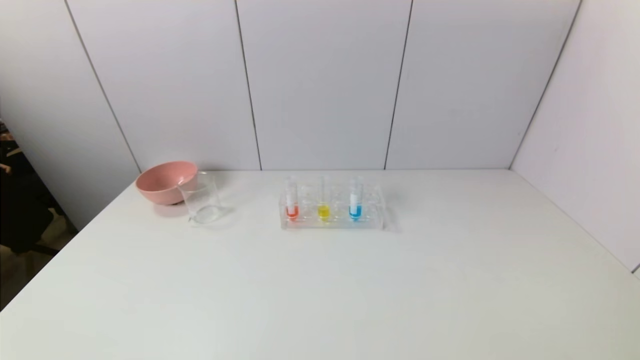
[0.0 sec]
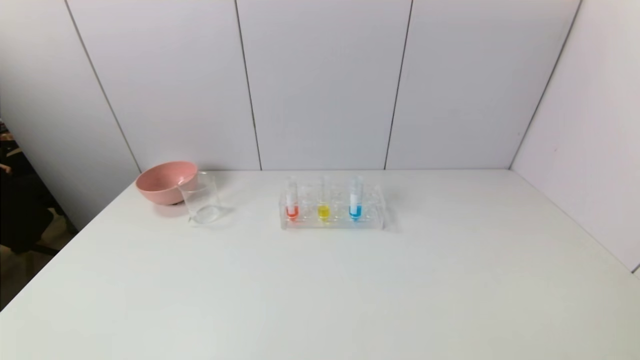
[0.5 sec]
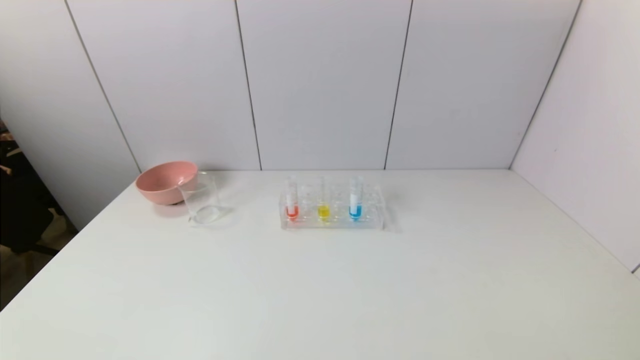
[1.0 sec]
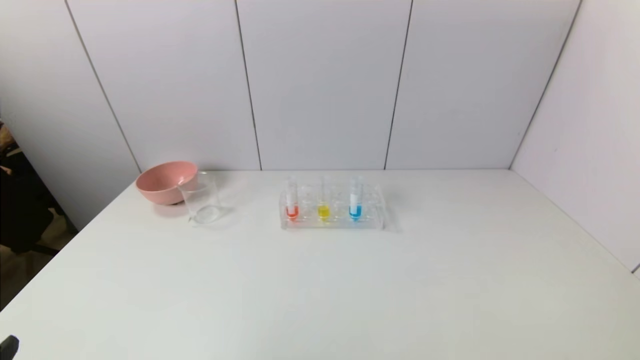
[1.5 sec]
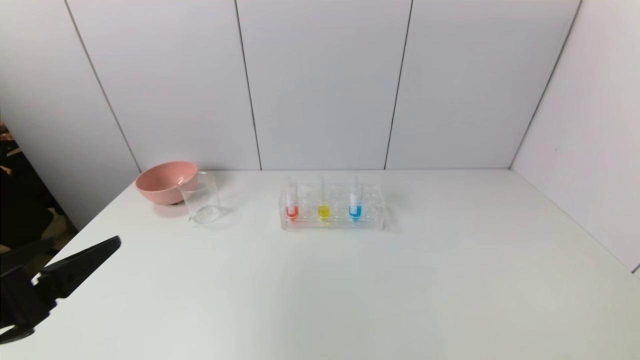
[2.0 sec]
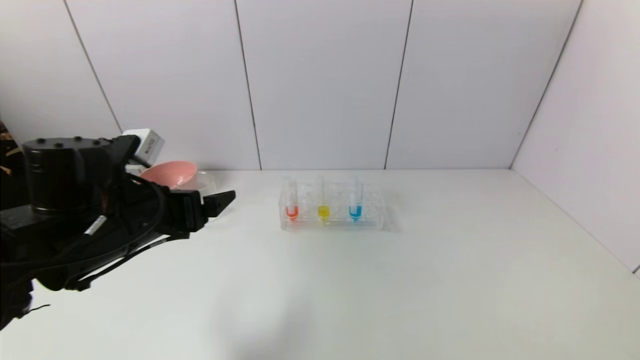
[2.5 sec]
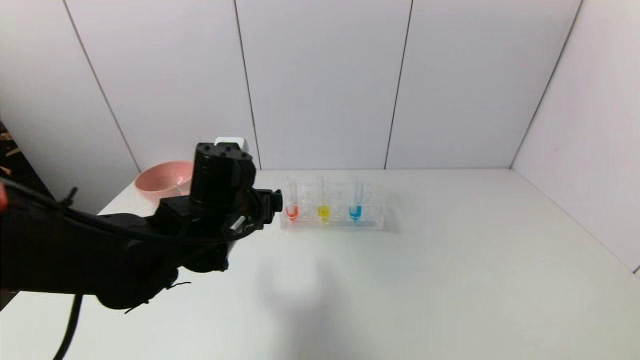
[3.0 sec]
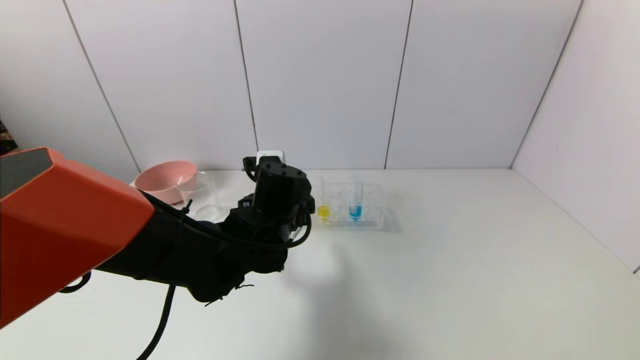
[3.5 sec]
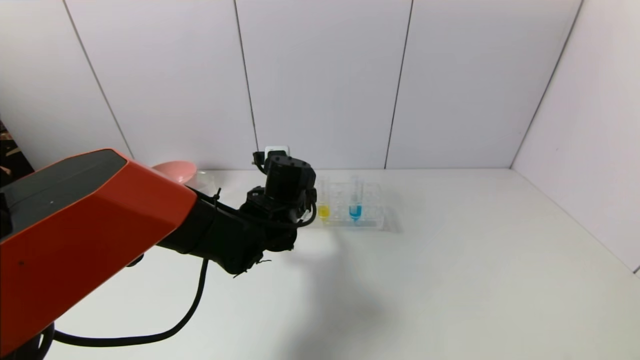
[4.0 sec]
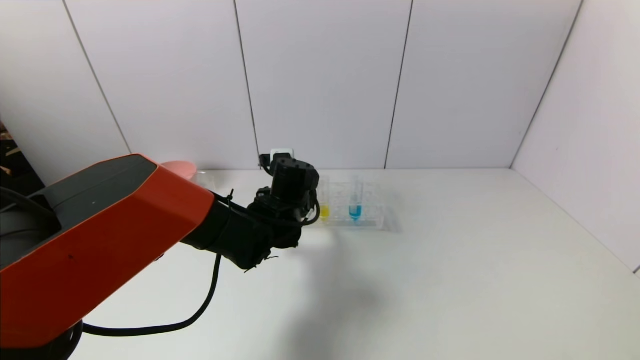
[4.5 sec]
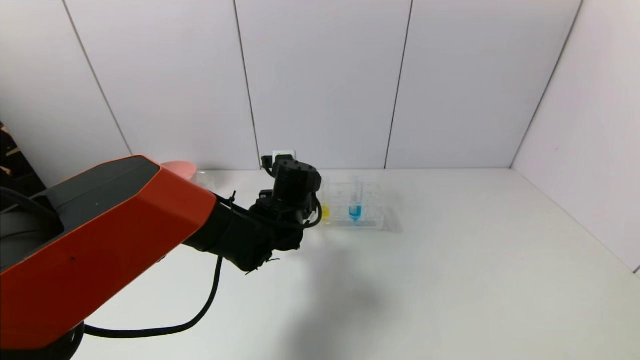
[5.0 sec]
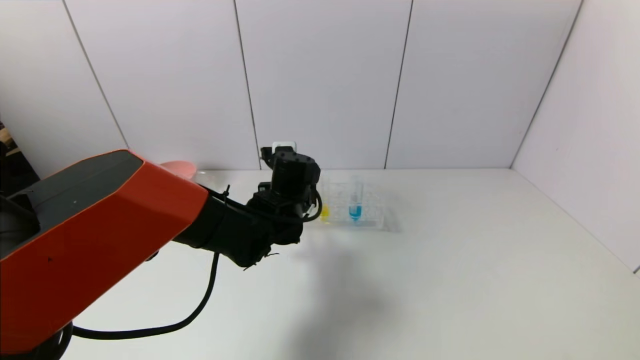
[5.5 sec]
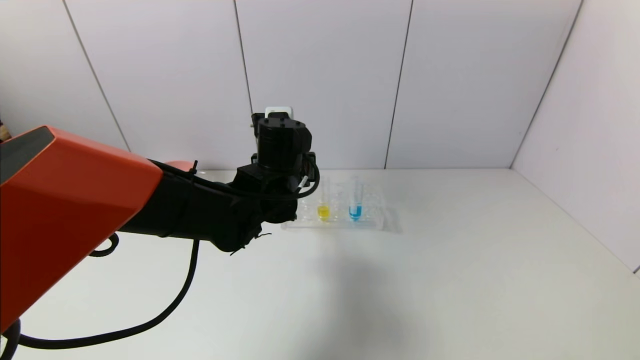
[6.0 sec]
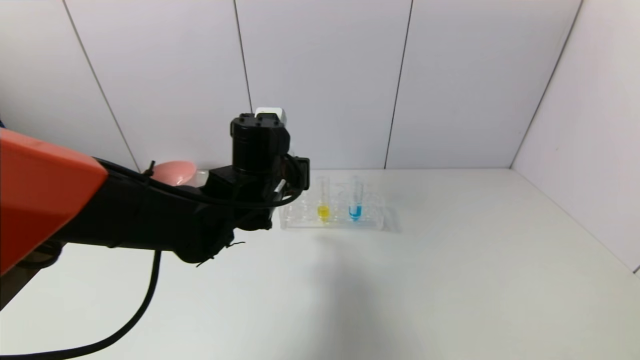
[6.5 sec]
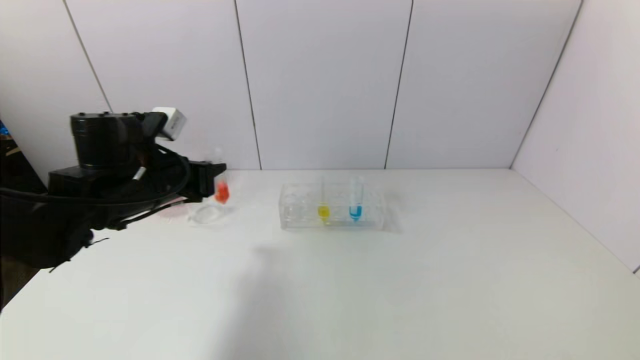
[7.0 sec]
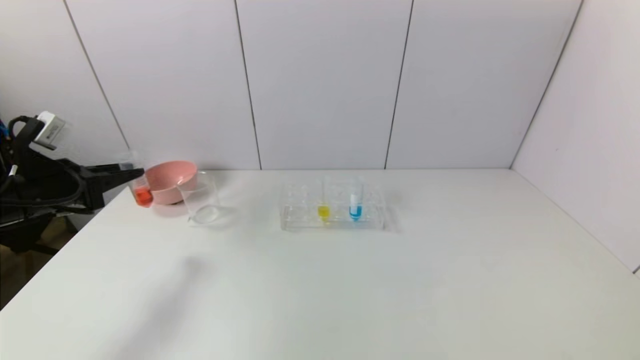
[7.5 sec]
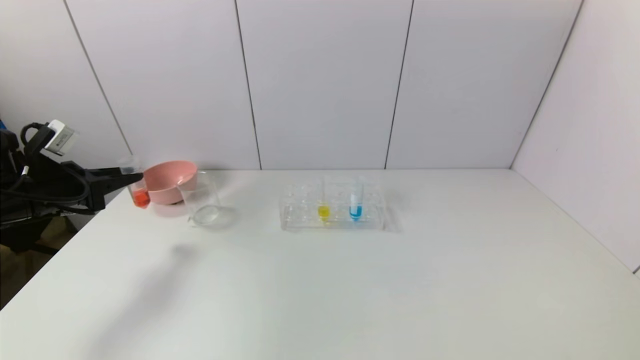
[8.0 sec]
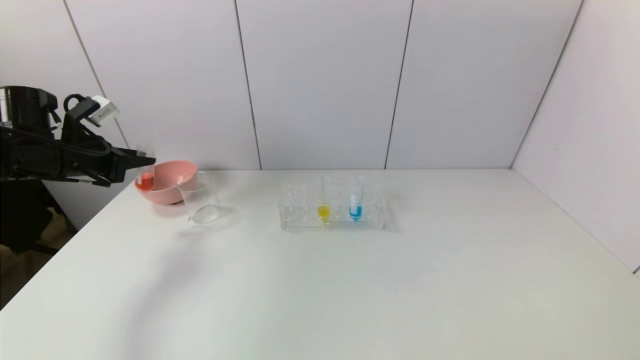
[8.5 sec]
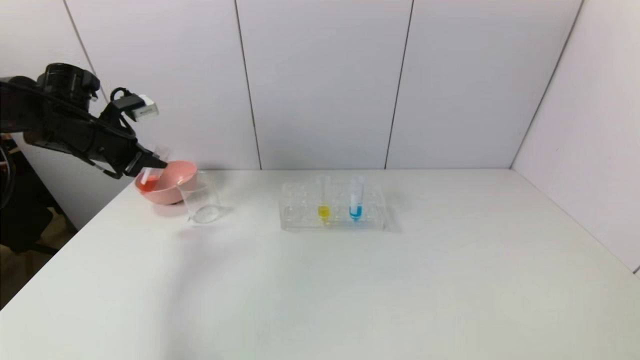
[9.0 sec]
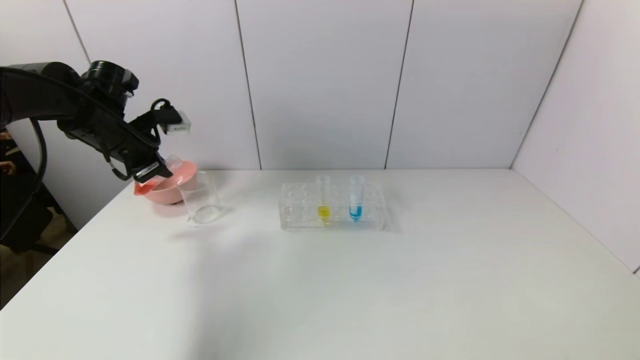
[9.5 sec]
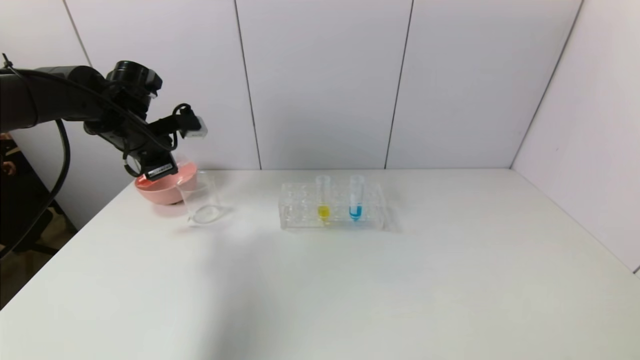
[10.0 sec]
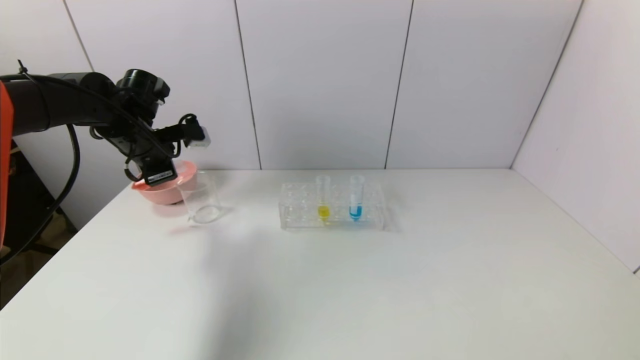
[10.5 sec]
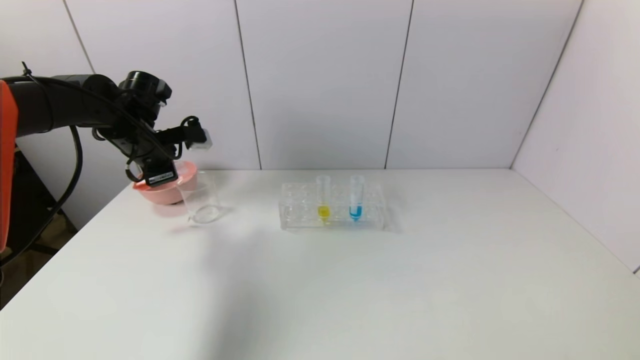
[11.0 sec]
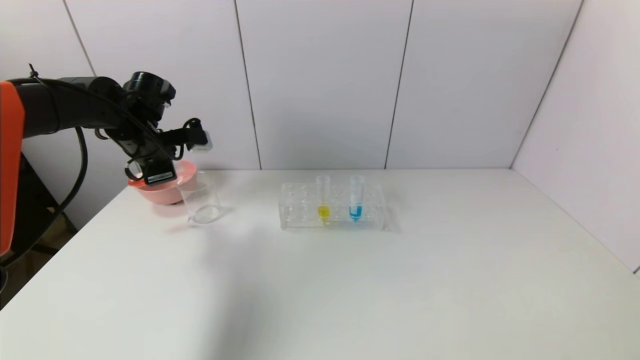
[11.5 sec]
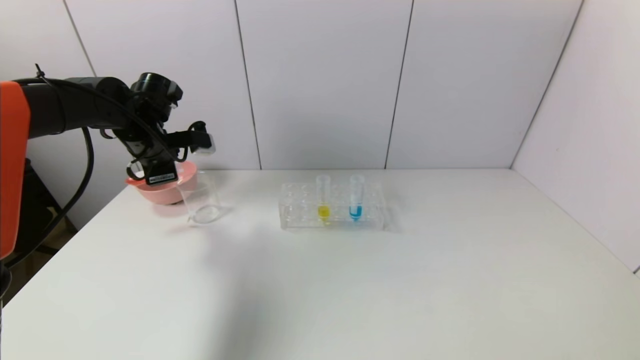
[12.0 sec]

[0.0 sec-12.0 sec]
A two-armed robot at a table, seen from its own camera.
Task of the whole recording: pick up the test tube with red pigment and the test tube with blue pigment by grippers and pour them into the container.
Step, 0.0 sec to 5.0 sec: Grasp the red reagent with the left gripper.
0.0 sec to 2.0 sec: The left gripper moves forward and upward, roughly 20 cm.
2.0 sec to 4.0 sec: The left gripper travels forward and to the right by about 35 cm.
4.0 sec to 6.0 sec: The left gripper travels upward by about 5 cm, and closes its fingers.
6.0 sec to 8.0 sec: The left gripper shifts about 35 cm to the left.
8.0 sec to 10.0 sec: The left gripper moves to the right, forward and upward, roughly 15 cm.
10.0 sec to 12.0 sec: The grippers stay close to where they were, moving slightly.

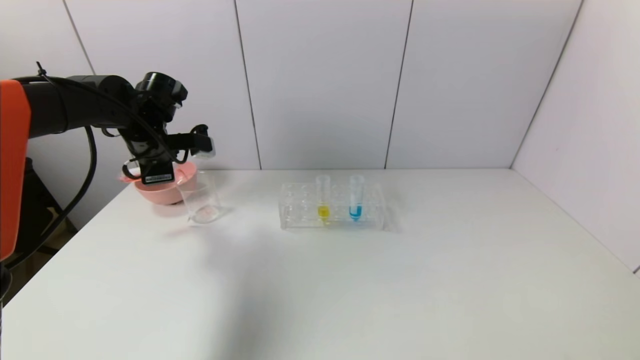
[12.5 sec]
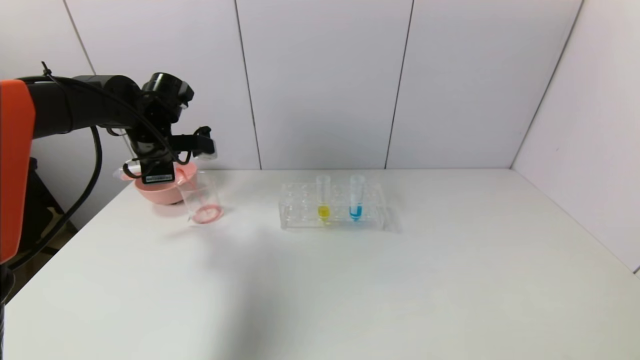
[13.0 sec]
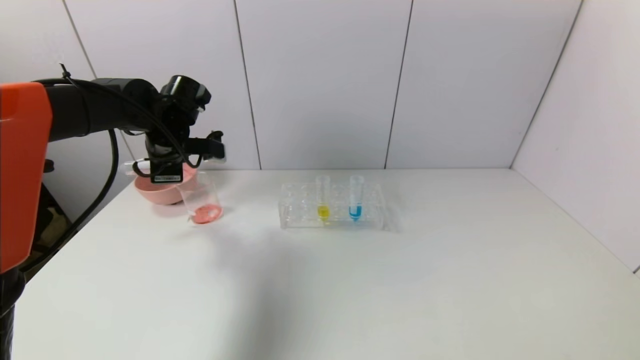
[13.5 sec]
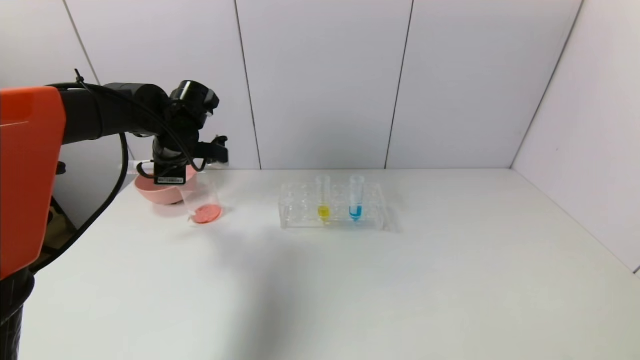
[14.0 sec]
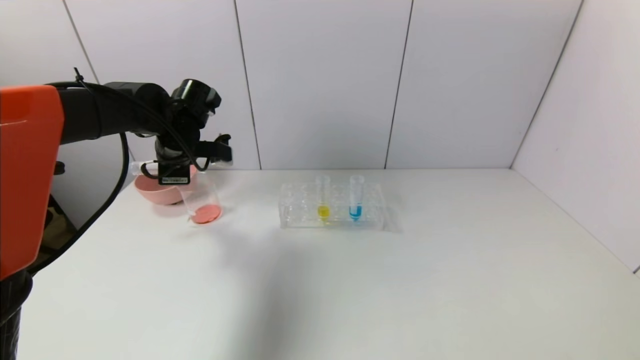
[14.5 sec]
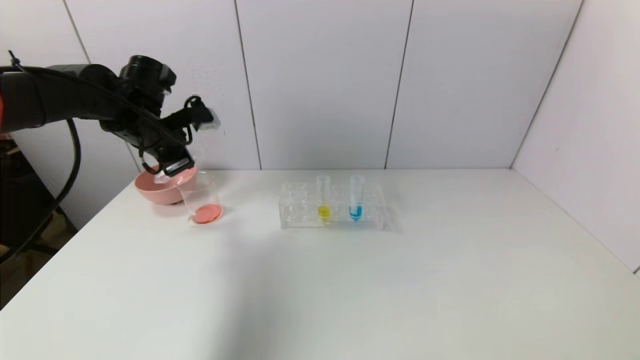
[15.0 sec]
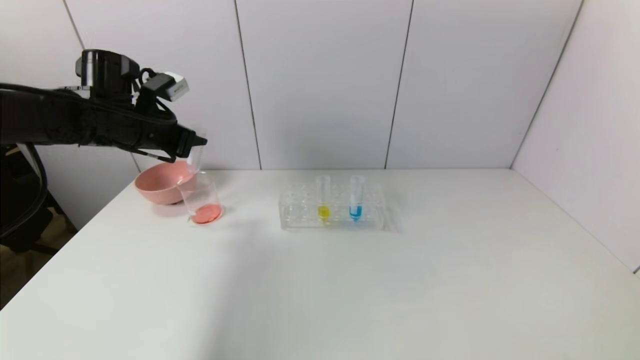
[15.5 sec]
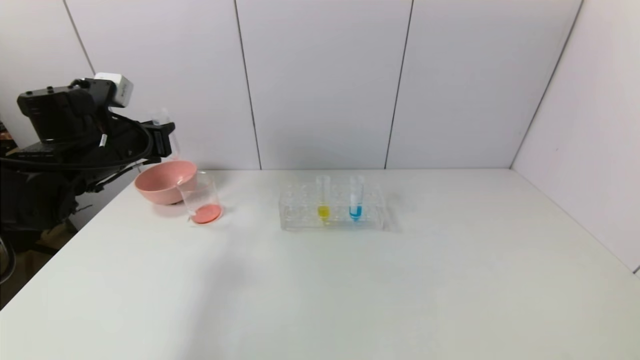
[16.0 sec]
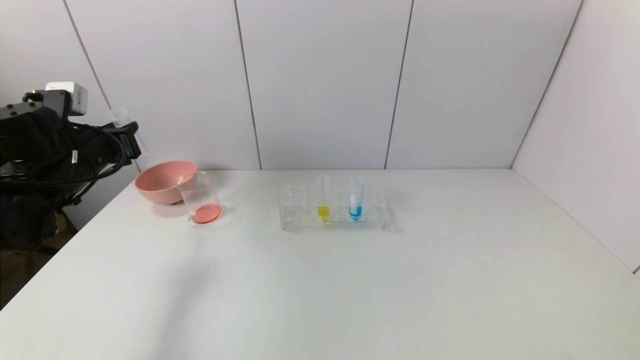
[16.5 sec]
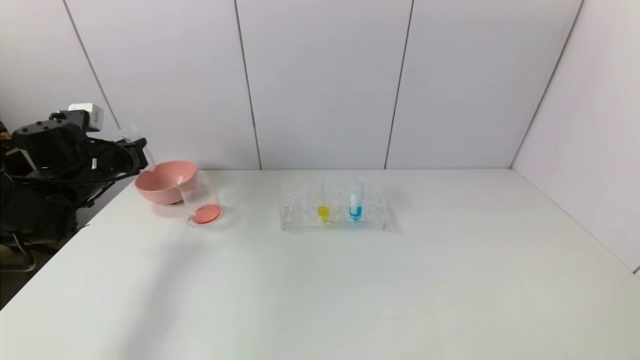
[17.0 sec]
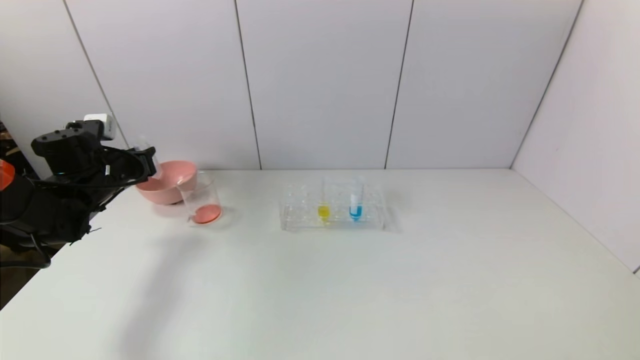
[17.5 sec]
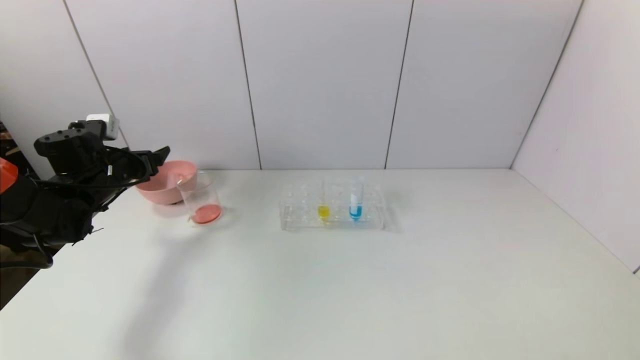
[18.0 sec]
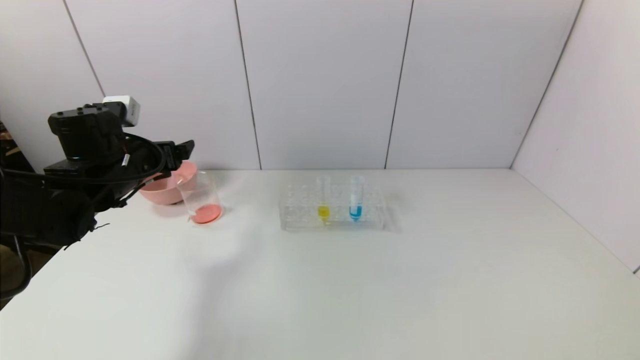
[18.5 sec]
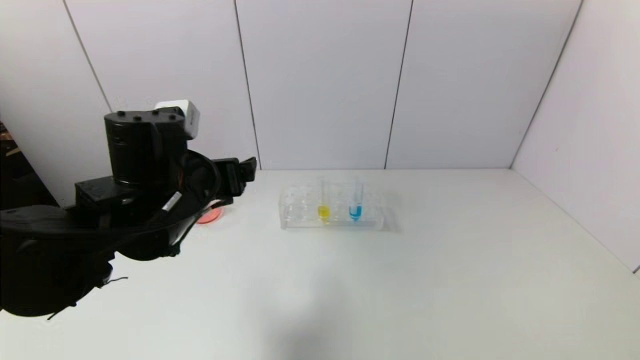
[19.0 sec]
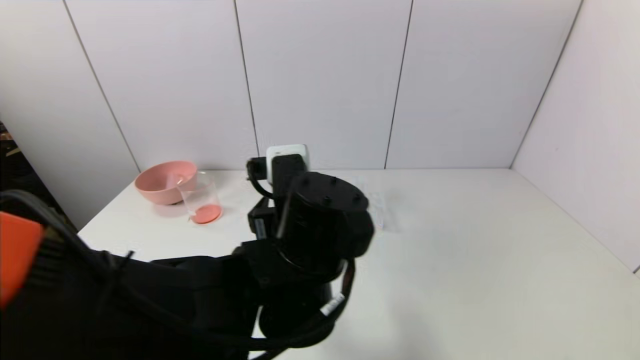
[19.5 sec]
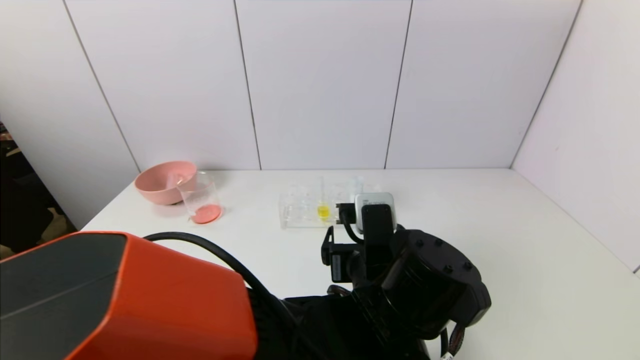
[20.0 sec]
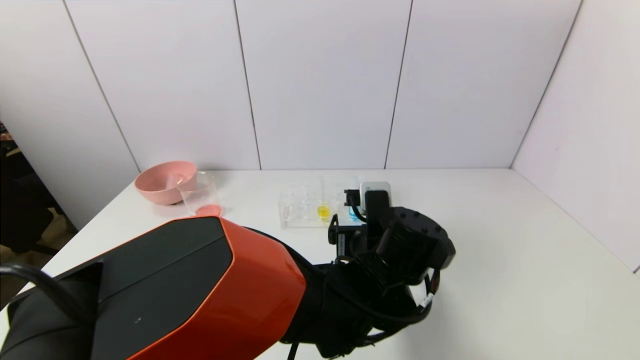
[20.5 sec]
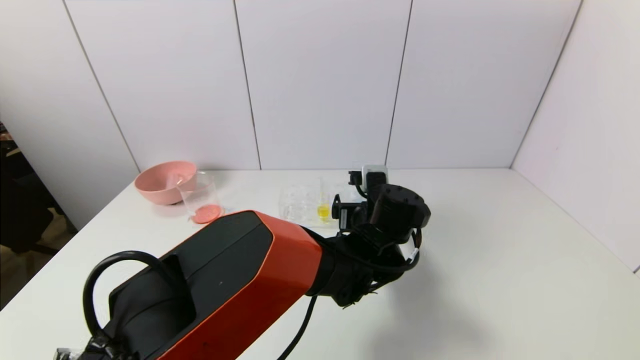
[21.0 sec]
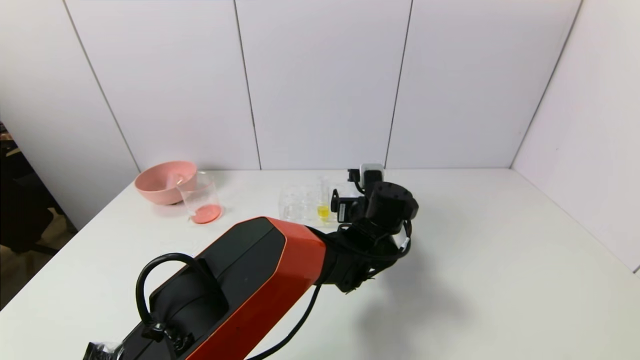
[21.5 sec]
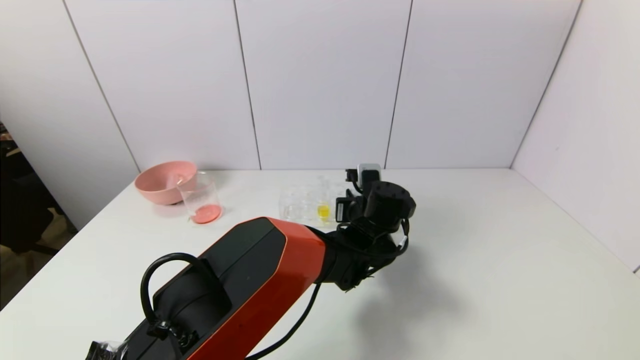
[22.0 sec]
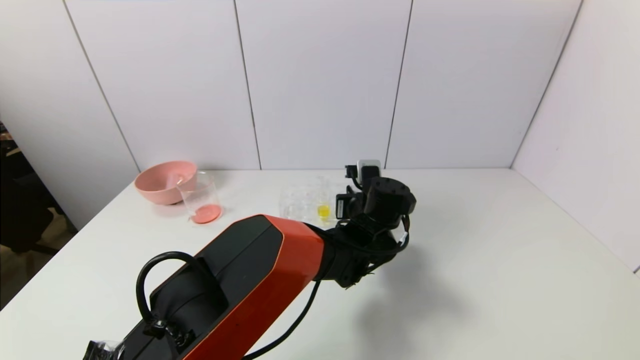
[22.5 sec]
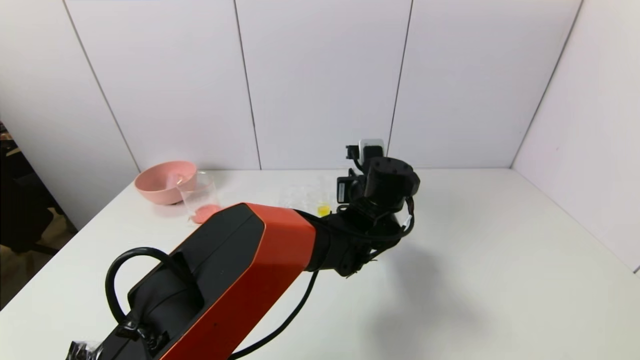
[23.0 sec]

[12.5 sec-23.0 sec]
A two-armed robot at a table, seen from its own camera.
Task of the whole recording: pick up the test tube with red pigment and the test tube with blue pigment by grippers and pour them into the container.
Step, 12.5 sec to 14.5 sec: Pour the red reagent into the graduated cylinder with the left gripper.
Step, 15.0 sec to 17.5 sec: Place the test tube into the bowl with the left gripper.
Step, 18.0 sec to 21.5 sec: Grasp the blue reagent with the left gripper.
12.5 sec to 14.5 sec: The grippers make only small movements.
14.5 sec to 16.5 sec: The left gripper travels to the left and backward by about 15 cm.
16.5 sec to 19.0 sec: The left gripper shifts some 20 cm to the right and backward, and opens.
19.0 sec to 21.0 sec: The left gripper heads to the right and downward, covering roughly 25 cm.
21.0 sec to 23.0 sec: The left gripper closes.
